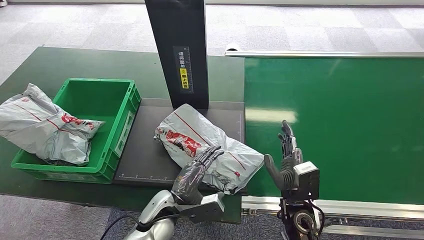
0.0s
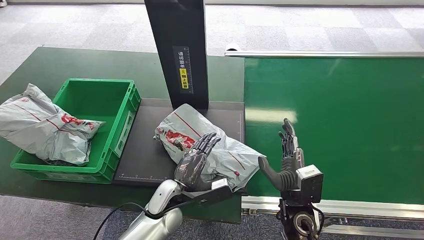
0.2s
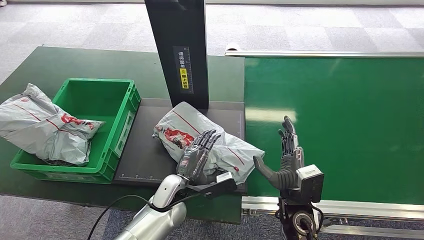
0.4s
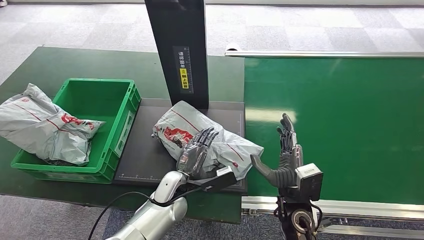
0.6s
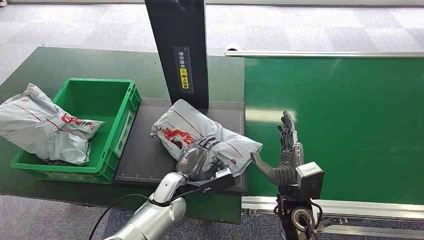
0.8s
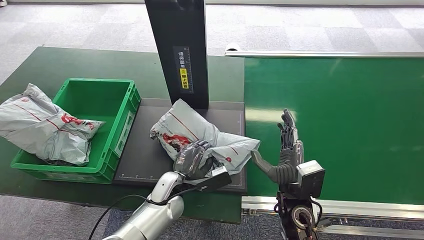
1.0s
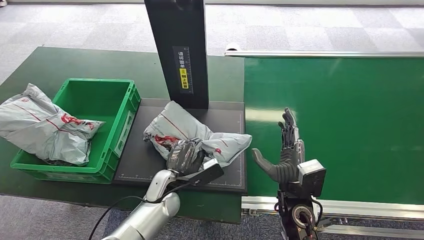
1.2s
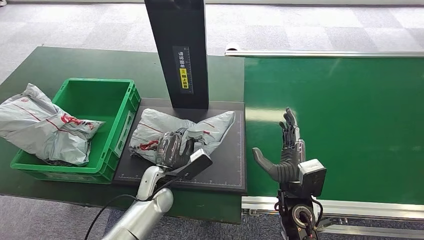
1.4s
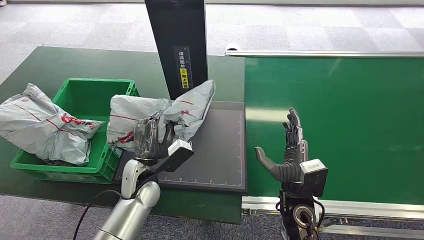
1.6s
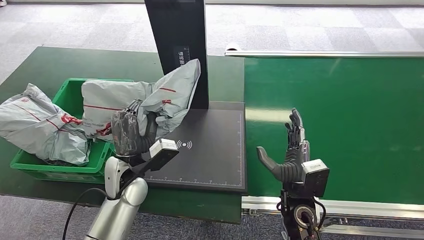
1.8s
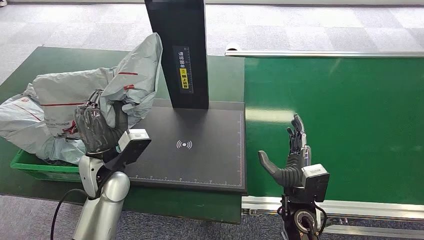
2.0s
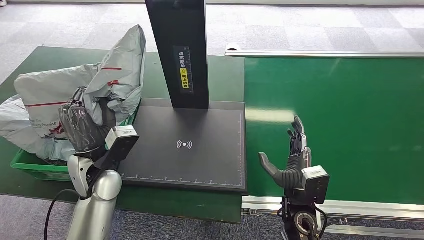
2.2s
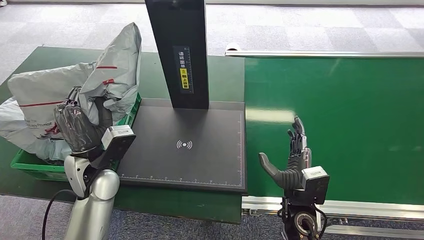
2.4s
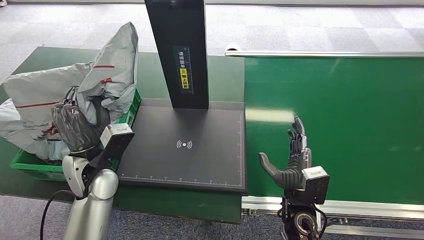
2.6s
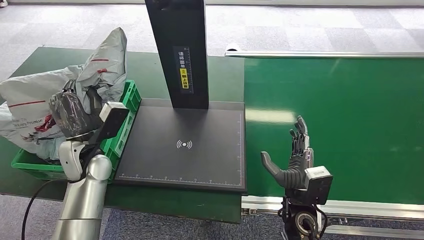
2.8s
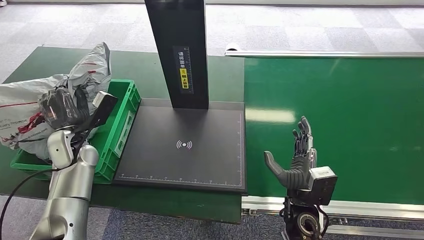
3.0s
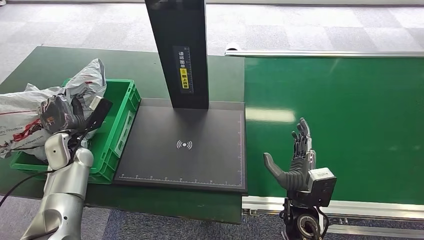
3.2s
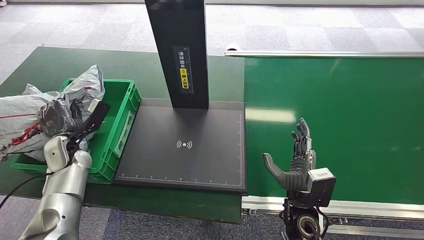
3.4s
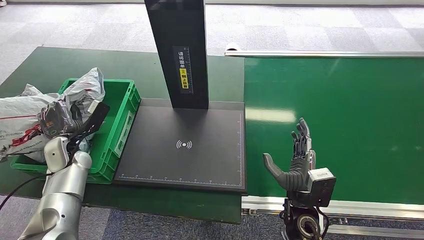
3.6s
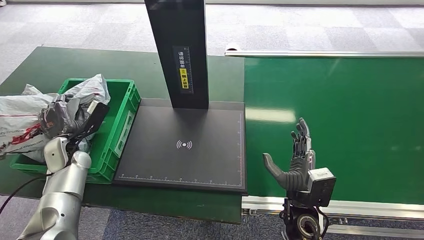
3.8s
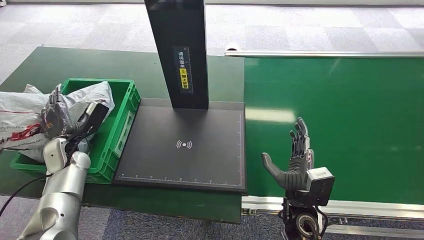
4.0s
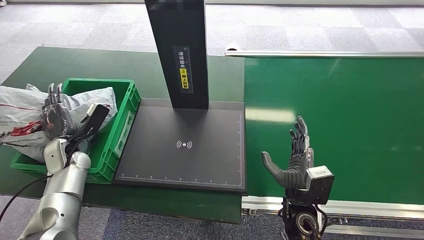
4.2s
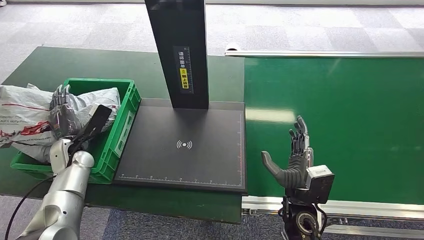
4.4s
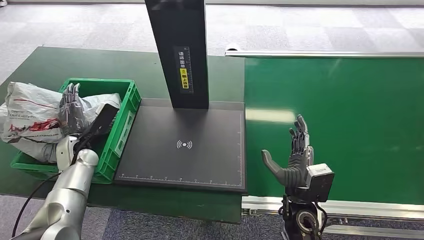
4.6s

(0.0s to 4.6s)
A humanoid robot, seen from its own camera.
Step, 0.0s - 2.2s: Pick up the package from the inbound machine.
Step, 2.4s - 4.4s: Place the package into the parcel locker.
0.0s - 1.6s: The left hand shifts roughly 5 cm forward.
3.0s - 4.6s: The left hand shifts about 5 cm downward.
